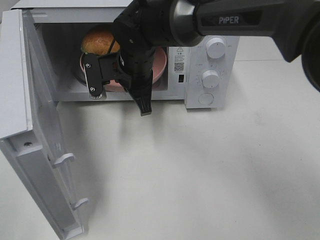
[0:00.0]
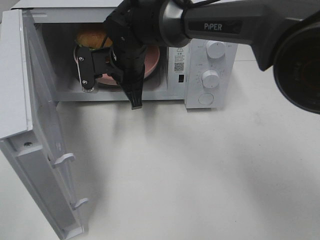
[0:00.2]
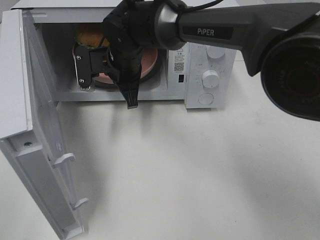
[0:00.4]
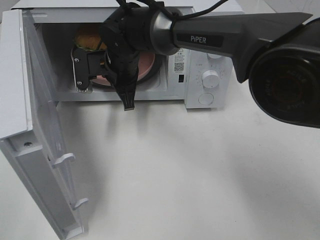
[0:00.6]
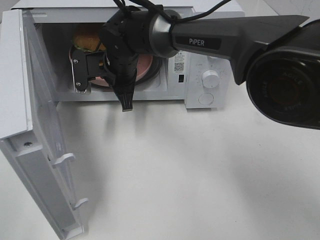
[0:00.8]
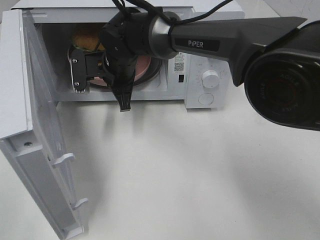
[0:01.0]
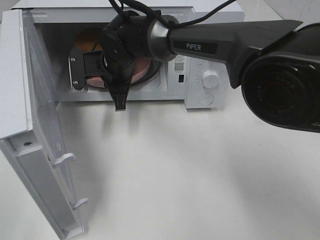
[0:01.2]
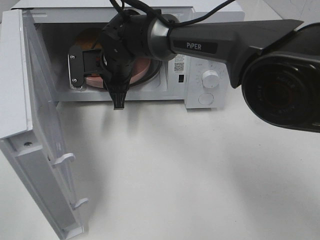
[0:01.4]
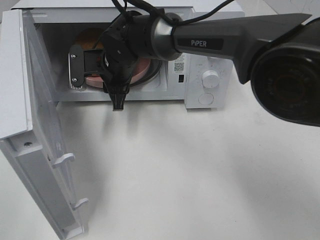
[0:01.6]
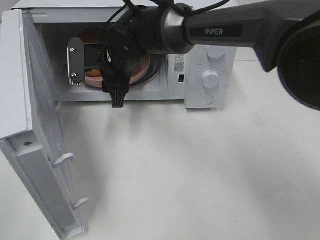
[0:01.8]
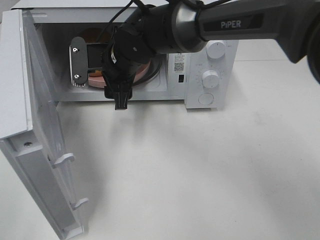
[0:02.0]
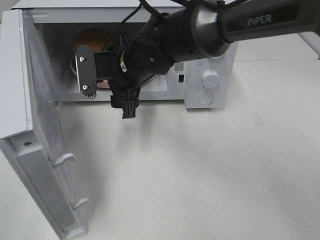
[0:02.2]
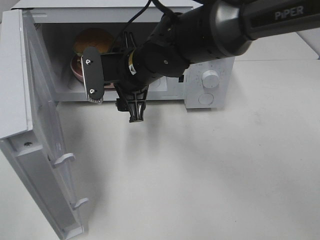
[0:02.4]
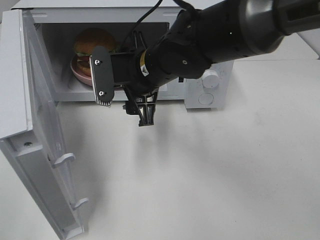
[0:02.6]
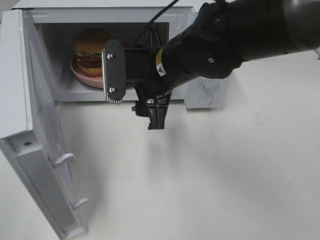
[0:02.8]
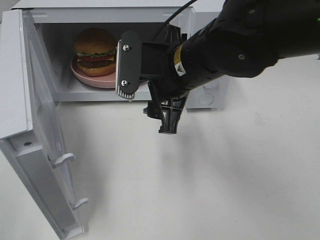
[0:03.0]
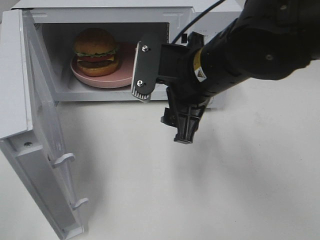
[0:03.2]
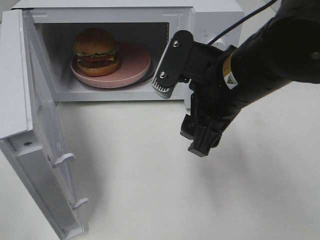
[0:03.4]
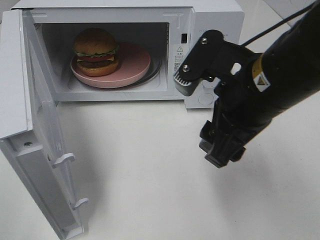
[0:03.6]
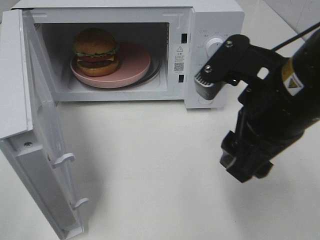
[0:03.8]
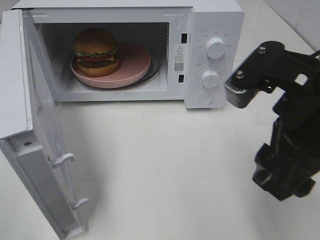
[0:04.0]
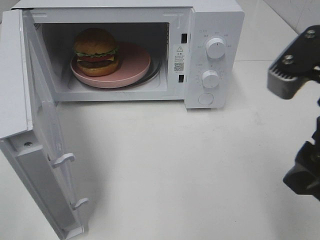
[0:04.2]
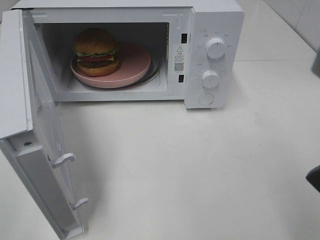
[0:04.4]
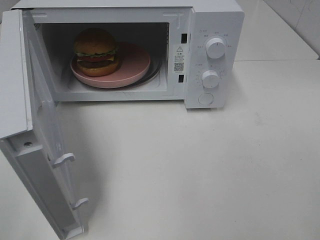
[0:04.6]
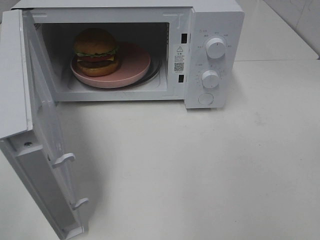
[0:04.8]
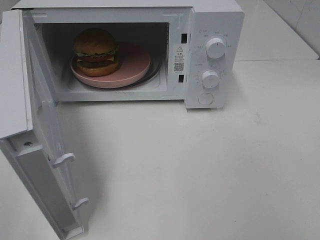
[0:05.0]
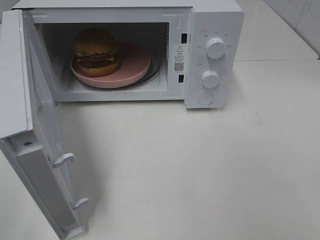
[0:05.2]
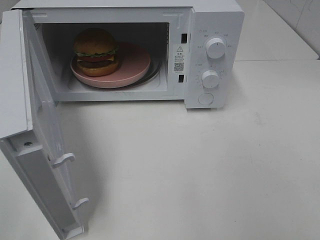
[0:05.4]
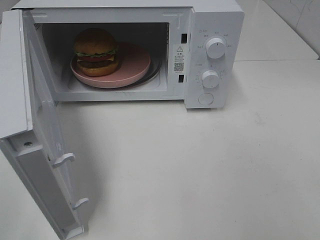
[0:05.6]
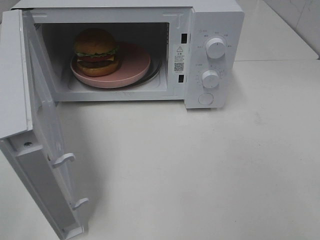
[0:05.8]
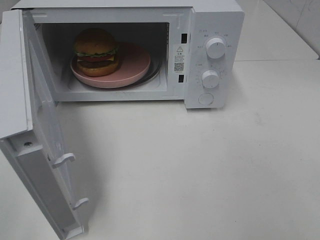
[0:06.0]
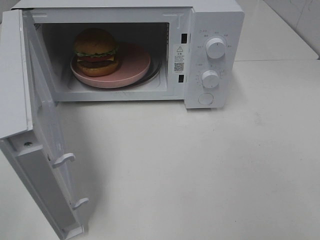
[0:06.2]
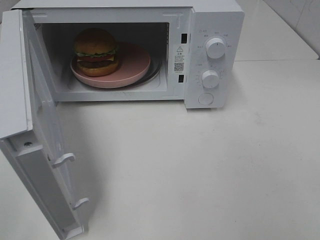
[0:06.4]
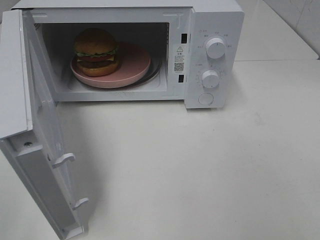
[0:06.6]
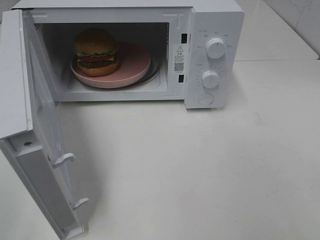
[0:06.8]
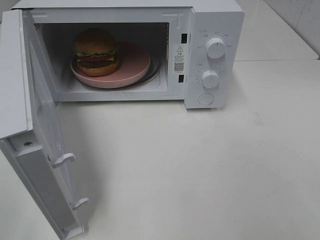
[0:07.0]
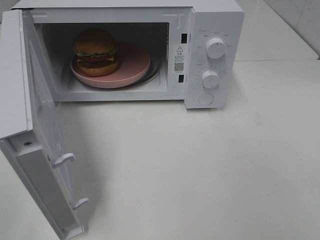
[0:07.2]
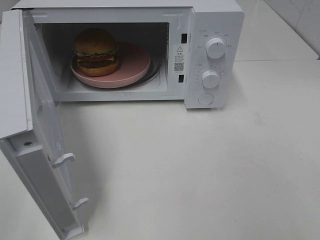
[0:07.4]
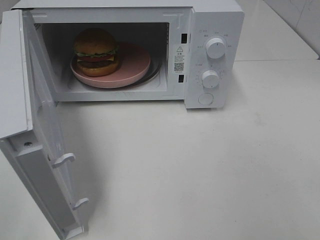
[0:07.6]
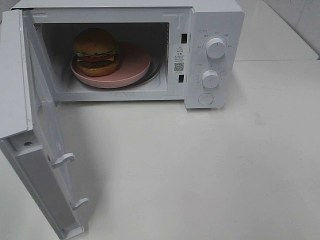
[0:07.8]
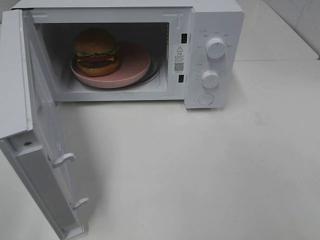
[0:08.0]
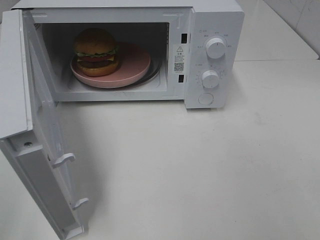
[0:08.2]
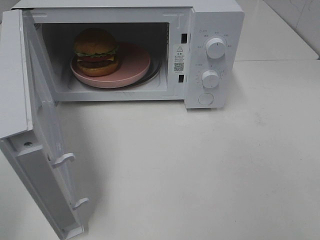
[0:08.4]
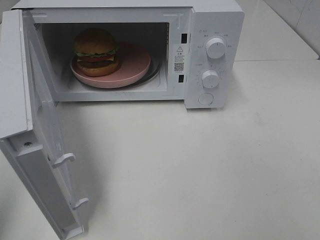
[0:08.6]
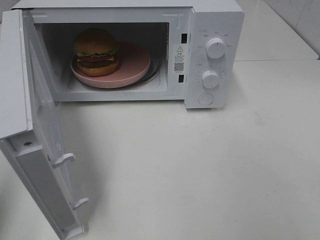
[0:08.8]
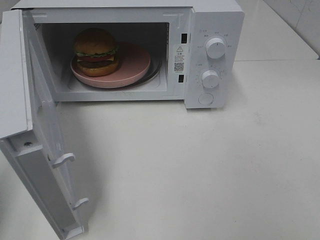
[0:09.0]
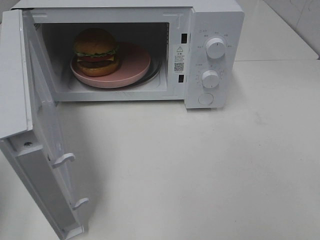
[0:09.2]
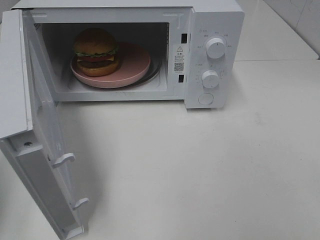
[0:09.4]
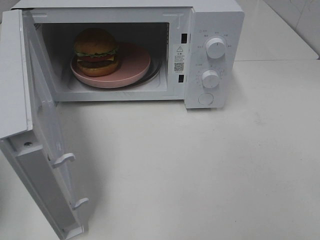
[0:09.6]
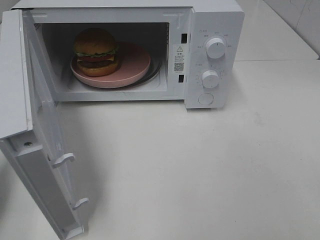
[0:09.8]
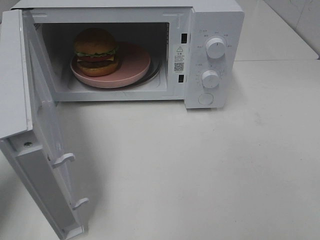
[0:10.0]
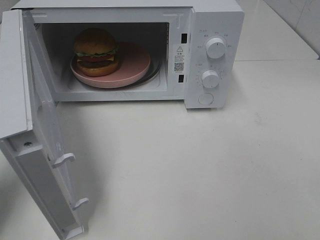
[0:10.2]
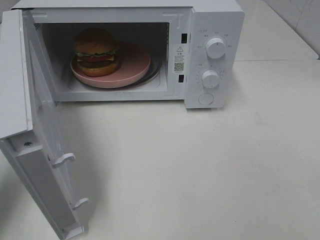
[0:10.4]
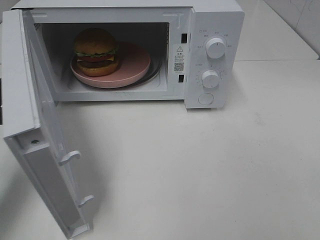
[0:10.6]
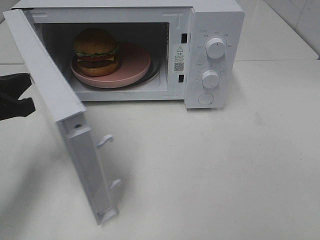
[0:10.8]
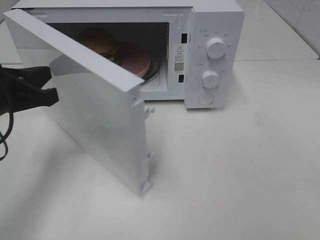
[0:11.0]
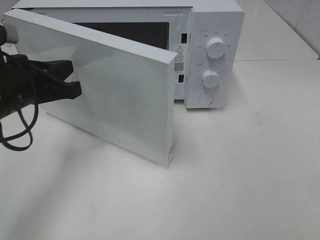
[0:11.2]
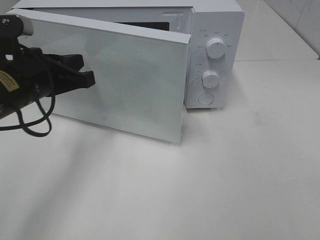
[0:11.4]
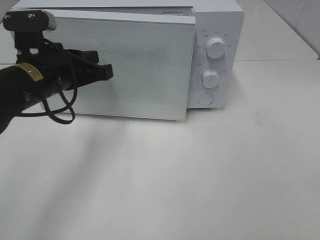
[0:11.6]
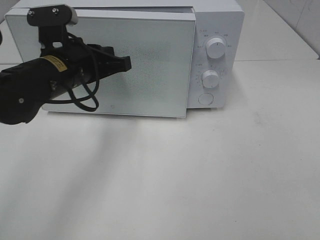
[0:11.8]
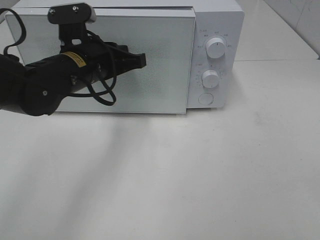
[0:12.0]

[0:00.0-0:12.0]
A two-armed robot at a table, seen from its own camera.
Task of the whole recording: Heat the burger.
0:00.0 to 0:01.6: The right gripper opens.
0:01.6 to 0:03.0: The right gripper moves backward, to the right and upward, about 20 cm.
0:03.0 to 0:04.4: The right gripper travels backward, to the right and upward by roughly 25 cm.
0:06.0 to 0:07.6: Both grippers stay about where they are.
0:09.0 to 0:10.4: The left gripper moves forward and downward, roughly 15 cm.
0:10.4 to 0:12.0: The left gripper moves to the right and forward, approximately 20 cm.

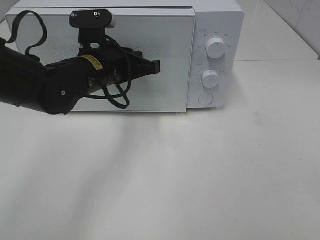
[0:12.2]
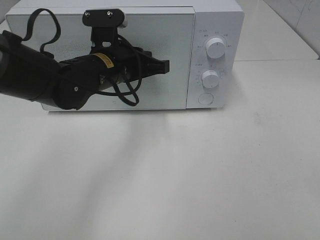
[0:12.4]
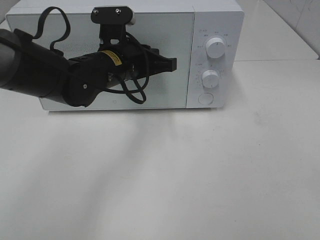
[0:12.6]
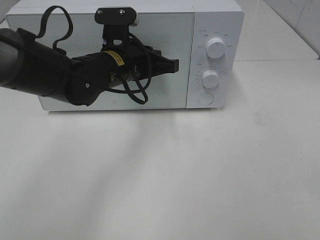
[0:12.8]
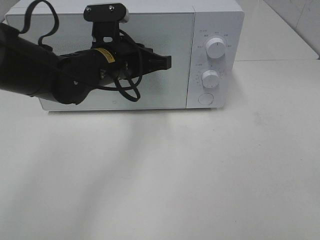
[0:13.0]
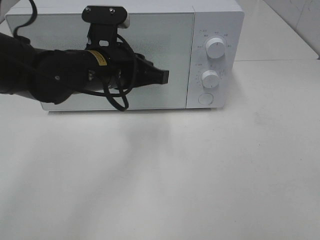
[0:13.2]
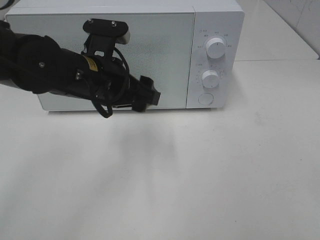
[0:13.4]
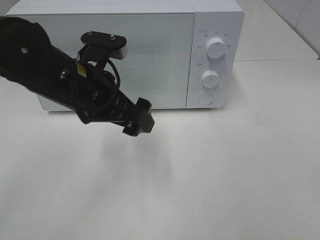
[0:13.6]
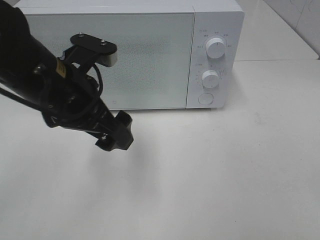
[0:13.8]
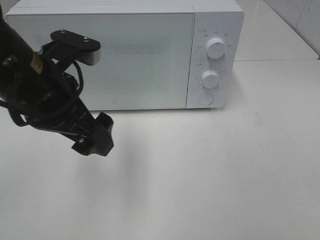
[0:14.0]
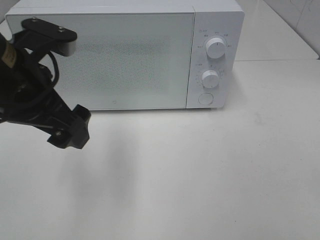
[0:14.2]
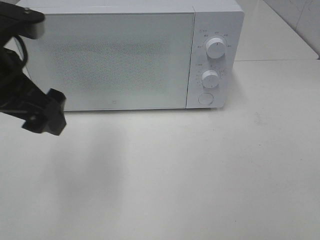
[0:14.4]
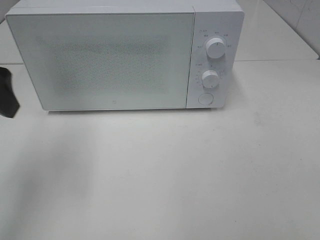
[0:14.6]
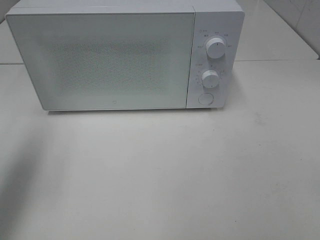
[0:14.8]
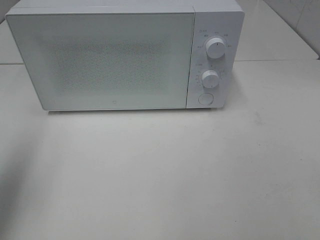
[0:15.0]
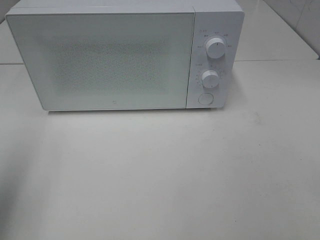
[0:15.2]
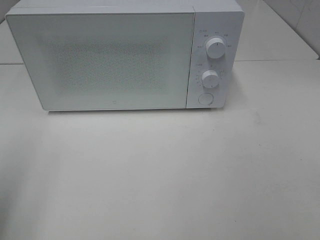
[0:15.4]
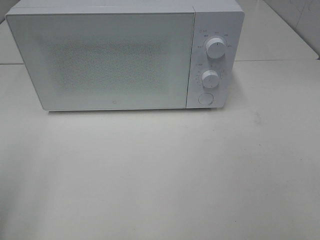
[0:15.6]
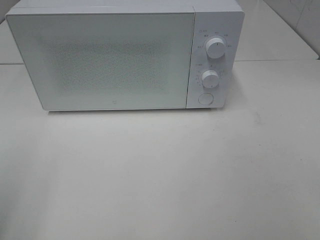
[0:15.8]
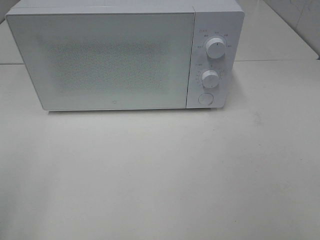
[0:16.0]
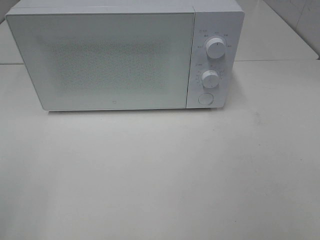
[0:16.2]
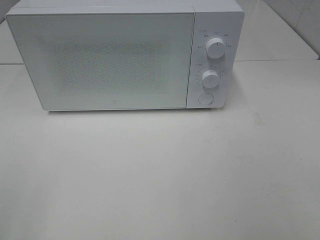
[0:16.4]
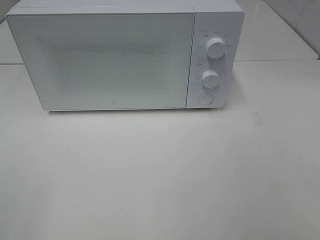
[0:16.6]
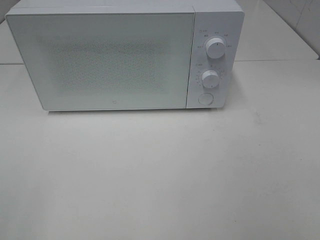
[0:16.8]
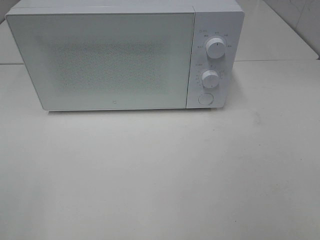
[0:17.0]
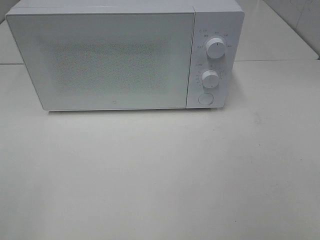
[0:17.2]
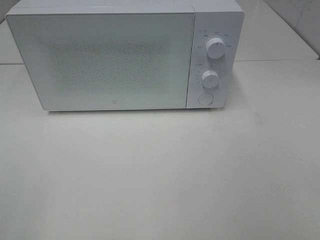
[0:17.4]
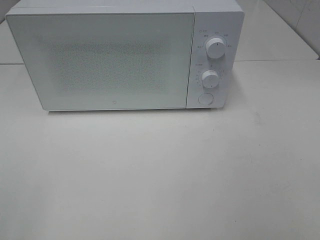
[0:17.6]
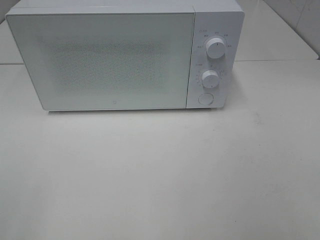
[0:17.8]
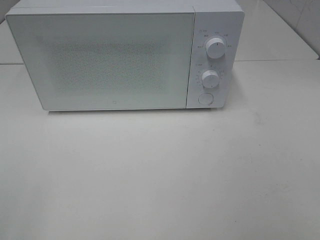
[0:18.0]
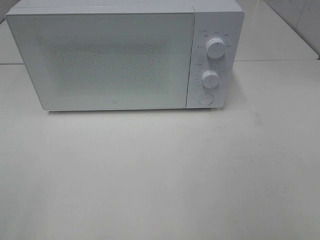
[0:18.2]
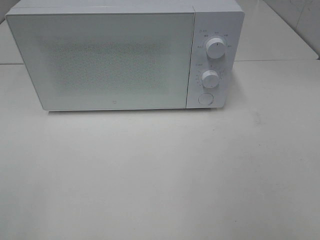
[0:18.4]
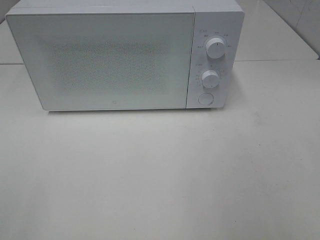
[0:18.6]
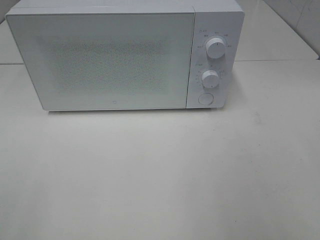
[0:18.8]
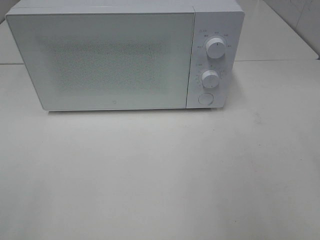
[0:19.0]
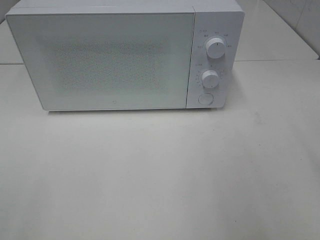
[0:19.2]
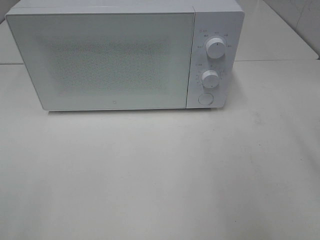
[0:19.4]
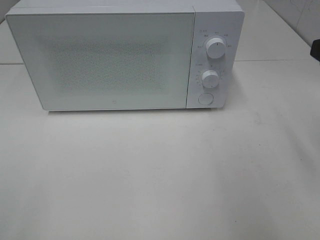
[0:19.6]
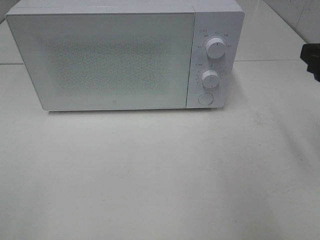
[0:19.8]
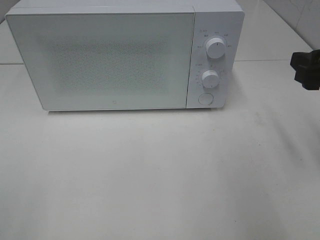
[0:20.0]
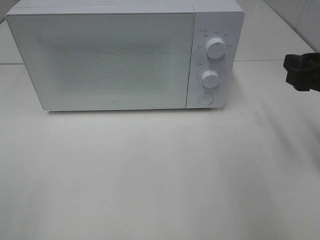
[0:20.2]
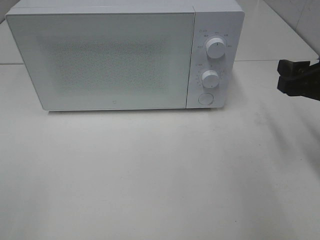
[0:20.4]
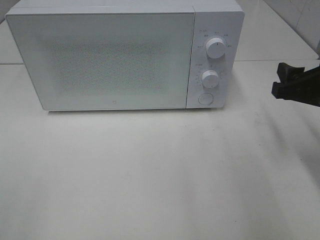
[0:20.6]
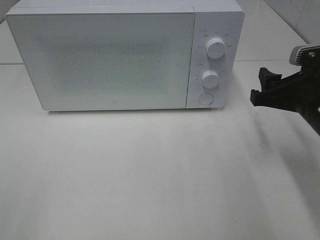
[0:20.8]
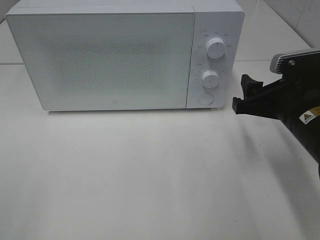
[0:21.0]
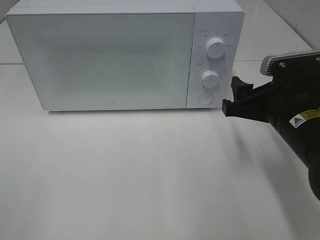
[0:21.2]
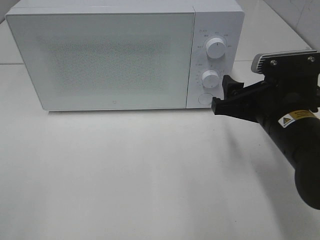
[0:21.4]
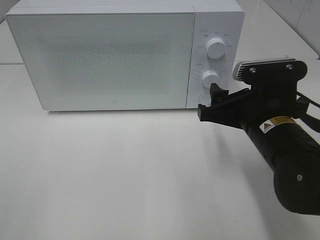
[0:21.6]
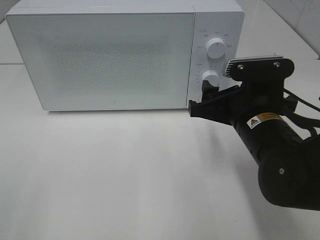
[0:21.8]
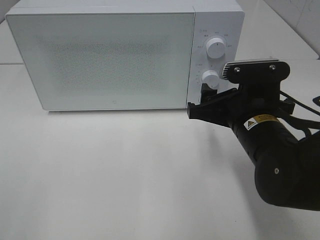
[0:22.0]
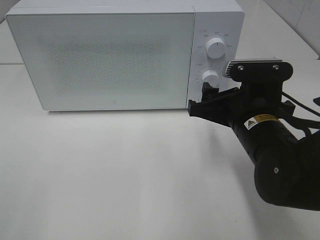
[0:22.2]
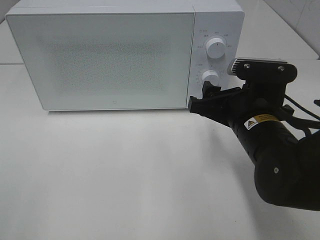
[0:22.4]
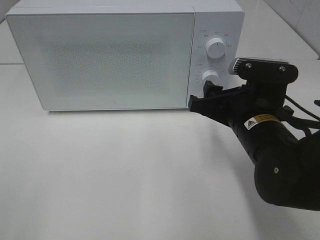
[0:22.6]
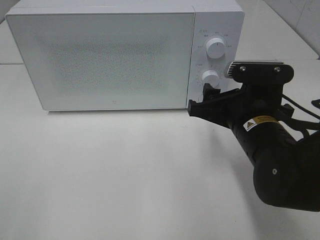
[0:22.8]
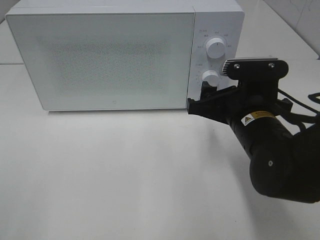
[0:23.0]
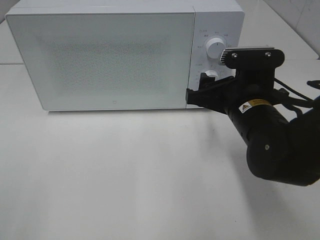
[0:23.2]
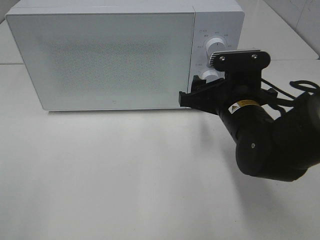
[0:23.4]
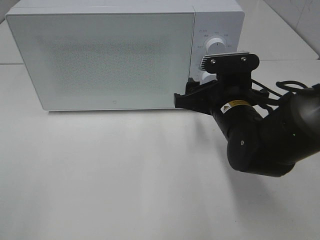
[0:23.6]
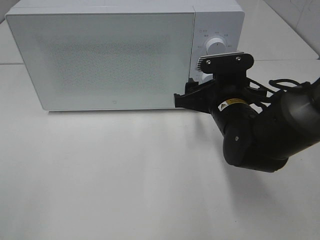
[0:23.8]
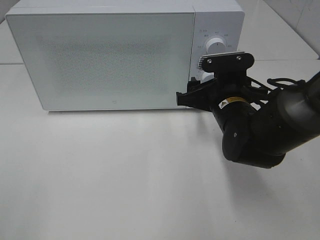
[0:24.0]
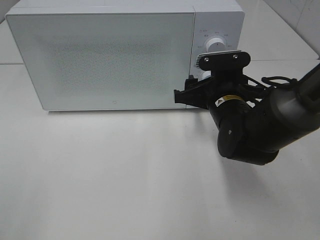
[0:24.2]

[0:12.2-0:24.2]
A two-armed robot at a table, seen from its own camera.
Task of the whole recording: Heat the burger.
0:12.2 to 0:13.8: The left gripper is displaced backward by approximately 10 cm, and opens up.
0:13.8 to 0:15.2: The left gripper moves to the left, backward and upward, approximately 25 cm.
0:15.2 to 0:16.6: The left gripper shifts some 15 cm backward.
0:18.2 to 0:19.8: The right gripper moves forward, about 20 cm.
0:19.8 to 0:21.2: The right gripper goes approximately 10 cm downward and to the left.
0:21.2 to 0:22.6: The right gripper moves roughly 5 cm.
0:22.6 to 0:24.2: The right gripper travels forward by about 10 cm.
